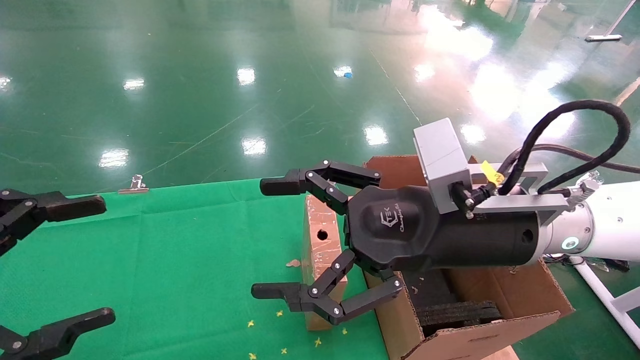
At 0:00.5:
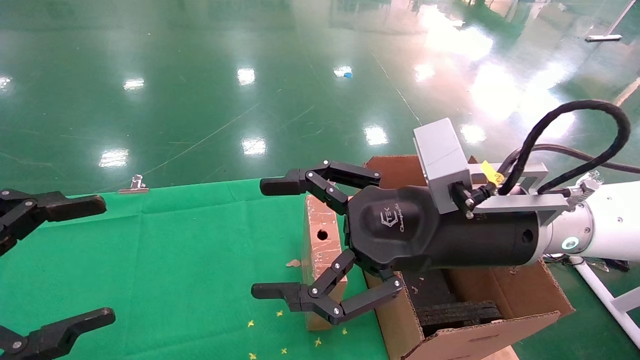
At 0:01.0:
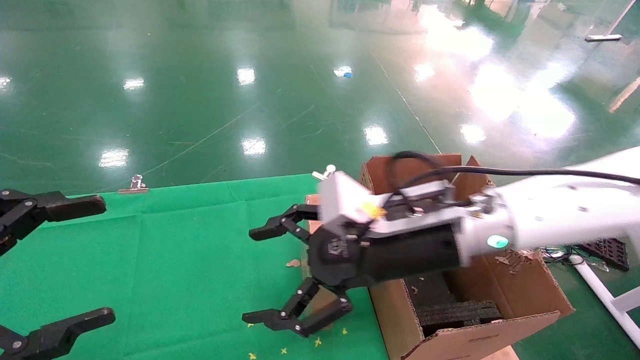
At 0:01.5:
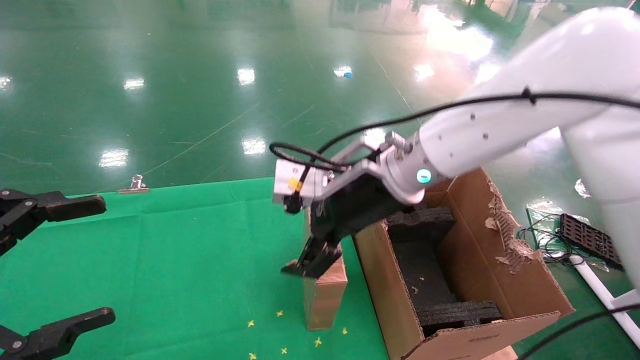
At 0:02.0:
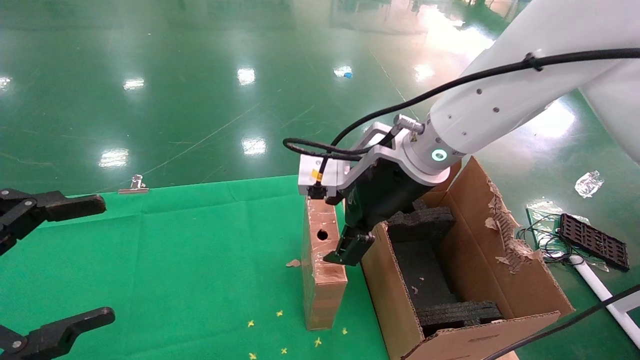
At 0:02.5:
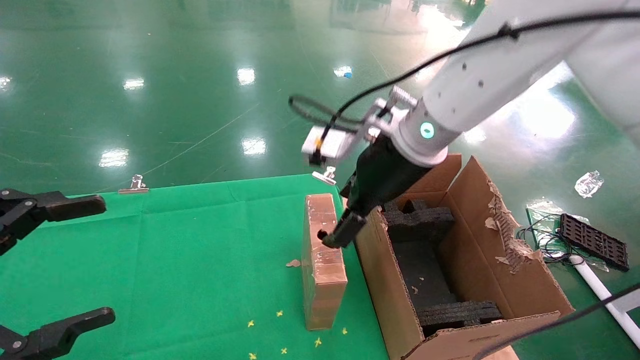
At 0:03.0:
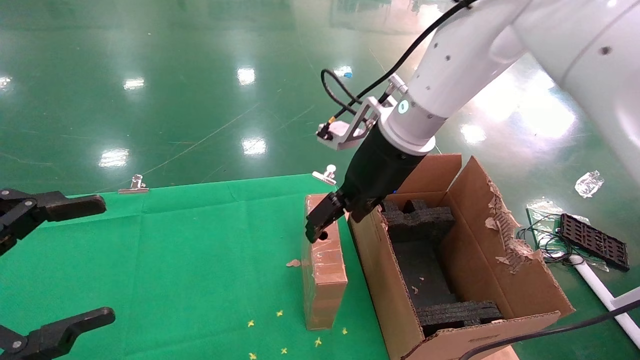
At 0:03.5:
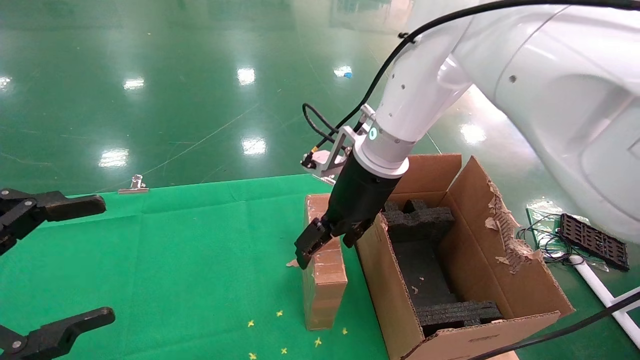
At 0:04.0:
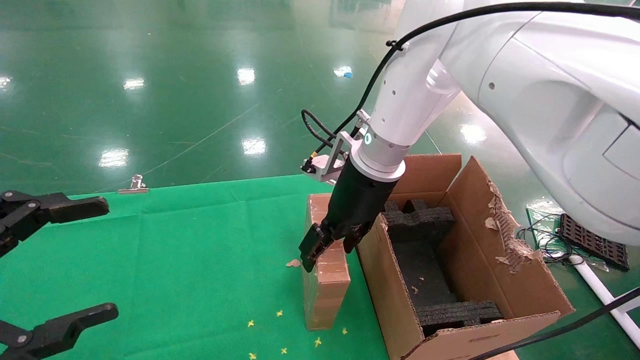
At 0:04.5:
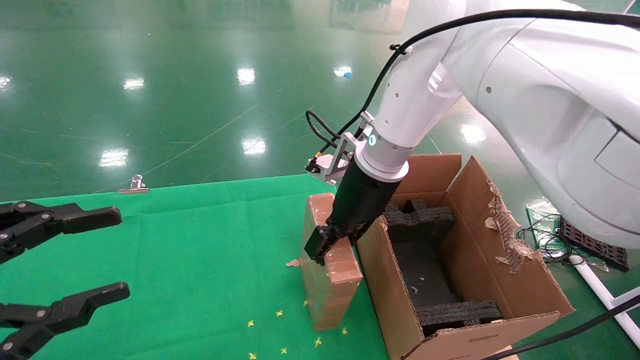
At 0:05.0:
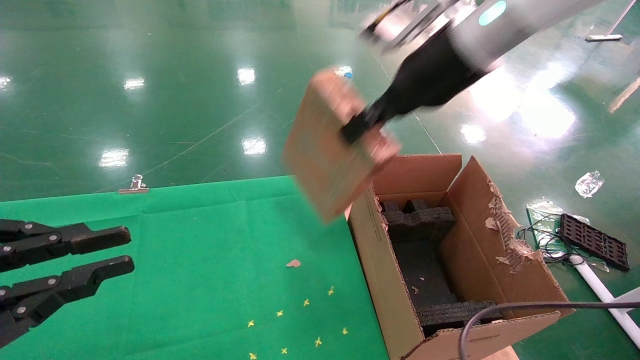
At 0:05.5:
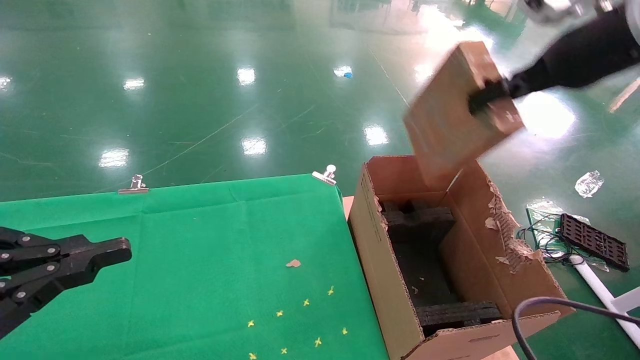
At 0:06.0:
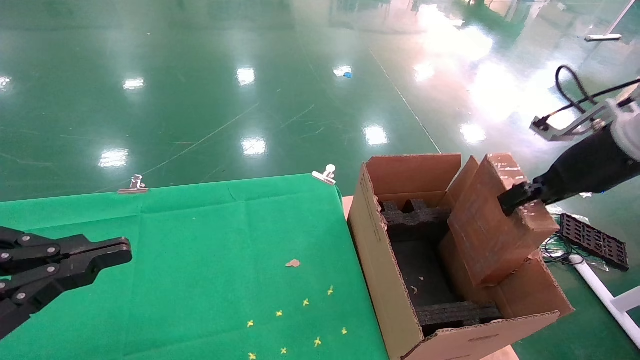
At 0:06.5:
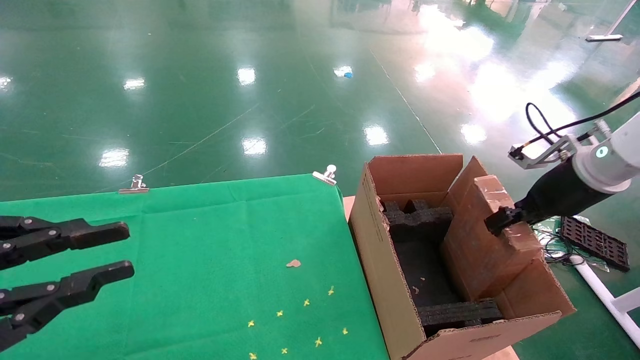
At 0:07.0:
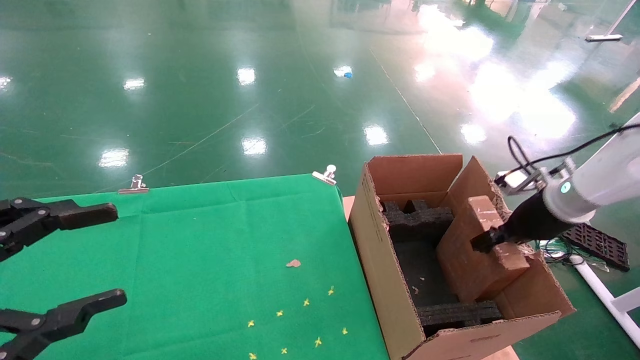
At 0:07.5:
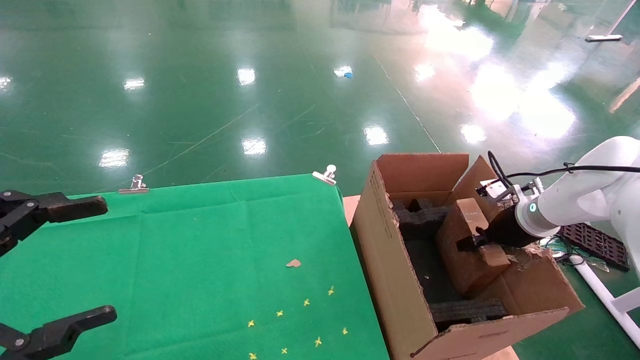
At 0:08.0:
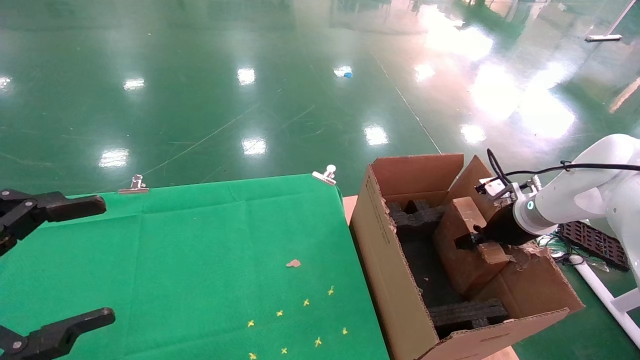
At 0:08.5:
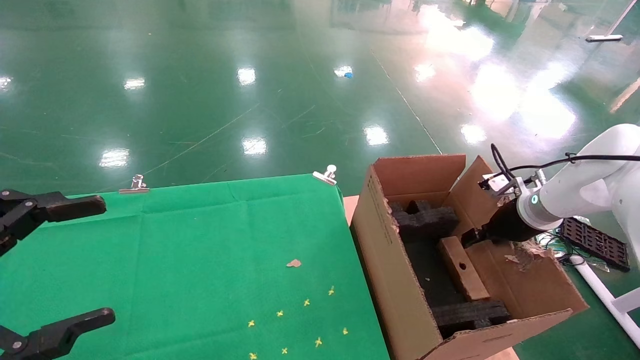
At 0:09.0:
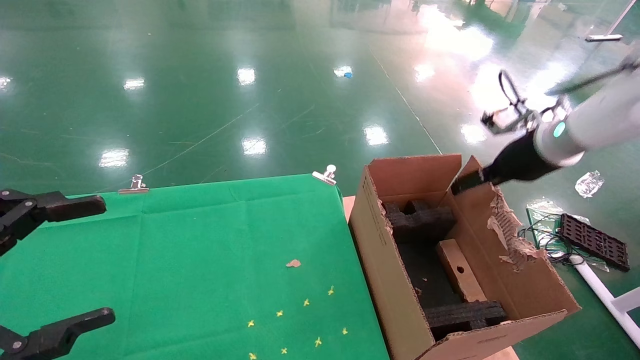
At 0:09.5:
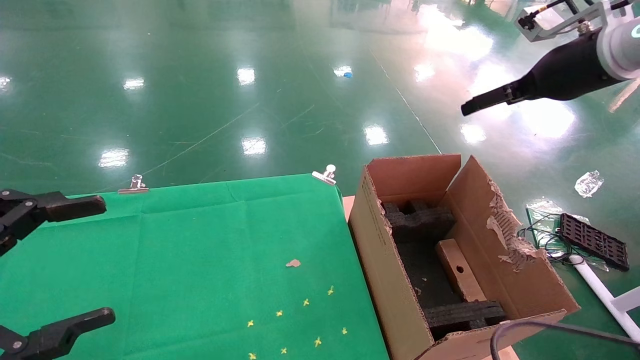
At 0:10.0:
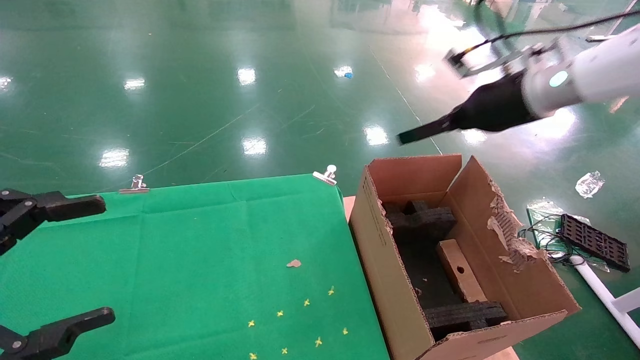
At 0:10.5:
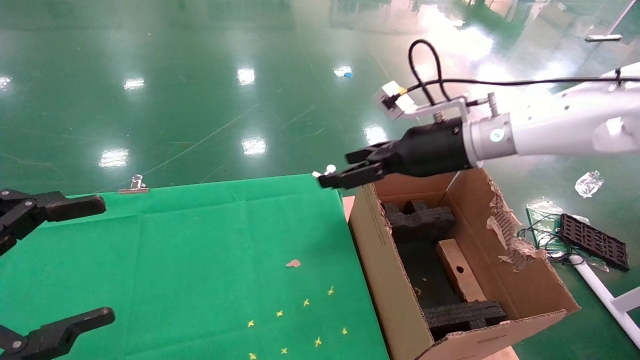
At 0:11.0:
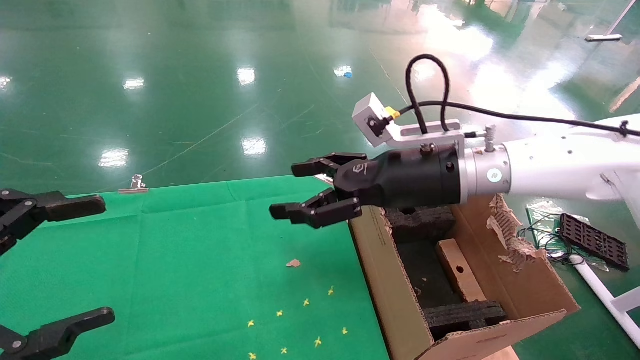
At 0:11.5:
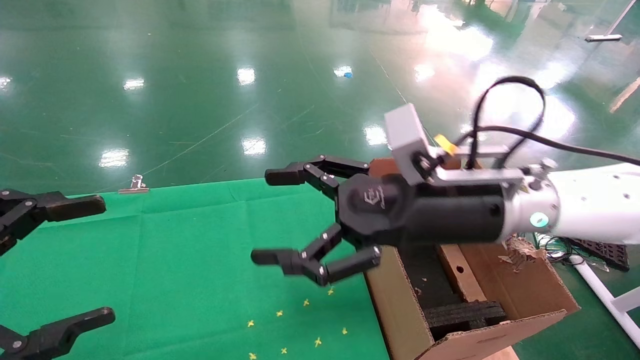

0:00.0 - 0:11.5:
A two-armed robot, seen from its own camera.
Task of the whole recording: using a robotic arm to pick up a cardboard box and palace it the carton.
Step, 0:01.0 - 0:04.0: Pick up the mouse and the power cord paper box.
Step, 0:04.5 - 0:08.5: Place the mouse and the power cord paper box into the container.
0:00.0 - 0:02.0: The right gripper travels forward by some 10 cm.
0:02.0 - 0:04.0: The right gripper goes some 5 cm forward.
0:04.0 - 0:06.0: The left gripper closes its fingers; the right gripper travels to the right by about 30 cm, and closes its fingers.
0:06.0 - 0:07.5: The left gripper opens up; the right gripper is displaced downward and forward by roughly 20 cm.
0:07.5 - 0:09.5: The right gripper moves upward, some 25 cm, and opens up.
0:09.5 - 0:11.5: The right gripper is displaced to the left and downward by about 25 cm.

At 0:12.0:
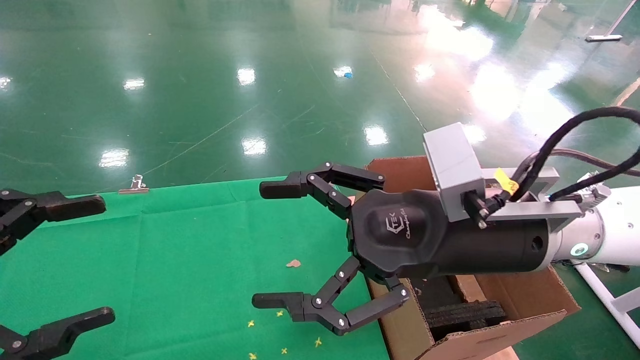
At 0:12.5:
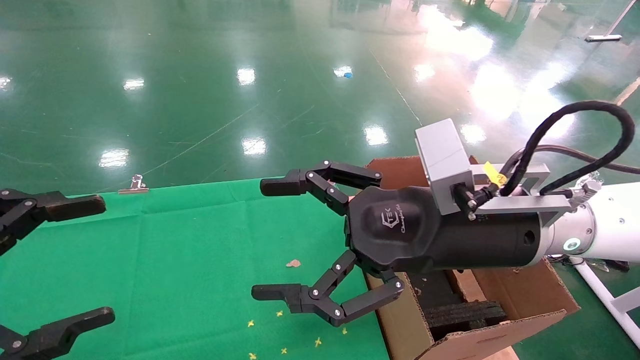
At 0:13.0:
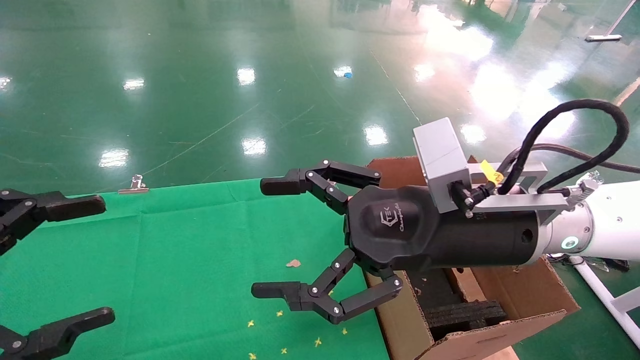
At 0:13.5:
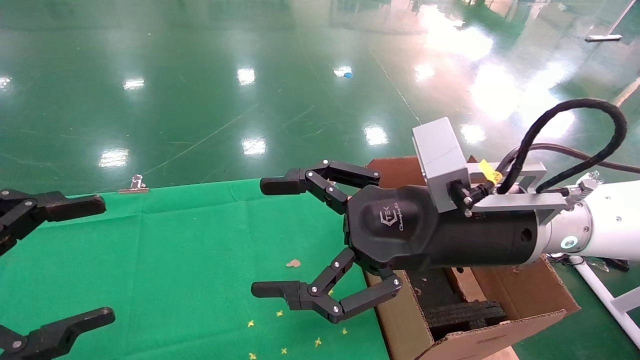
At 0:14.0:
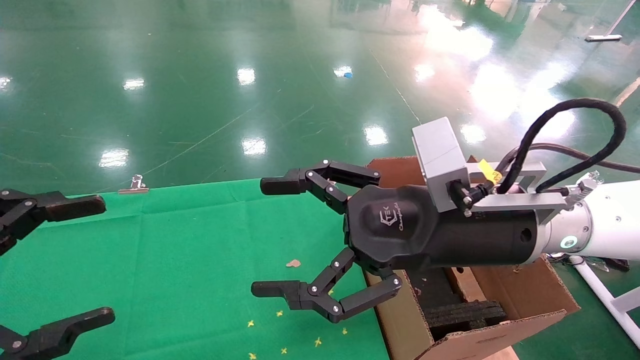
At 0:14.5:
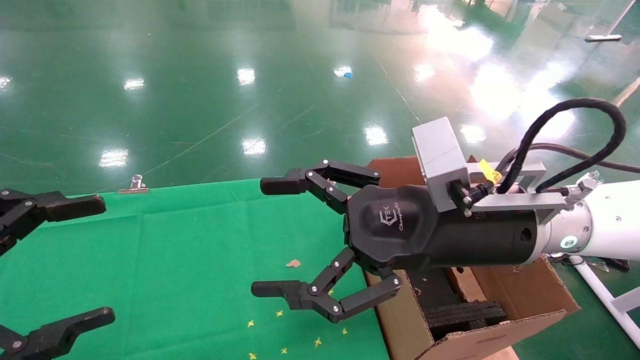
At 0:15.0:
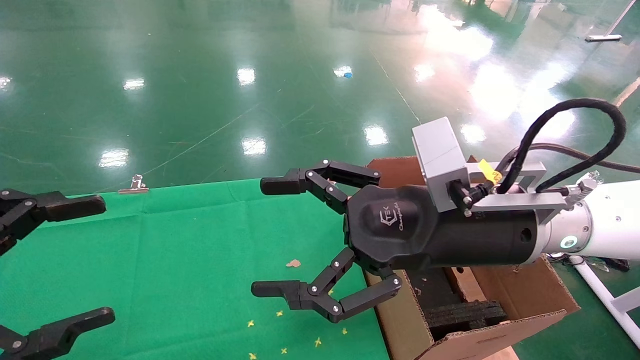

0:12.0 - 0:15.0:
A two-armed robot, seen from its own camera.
Task of the whole recording: using a robotic arm to pick up a cardboard box and palace it the carton.
0:12.0 - 0:15.0: Both grippers stay put.

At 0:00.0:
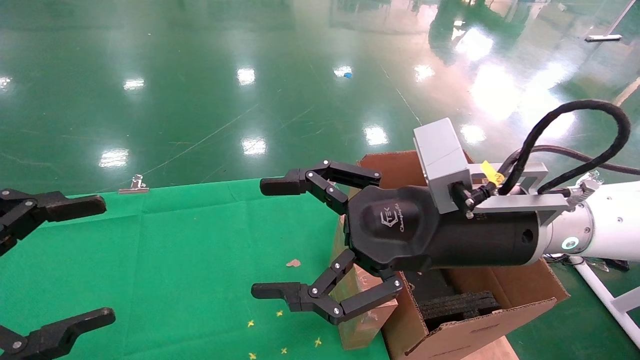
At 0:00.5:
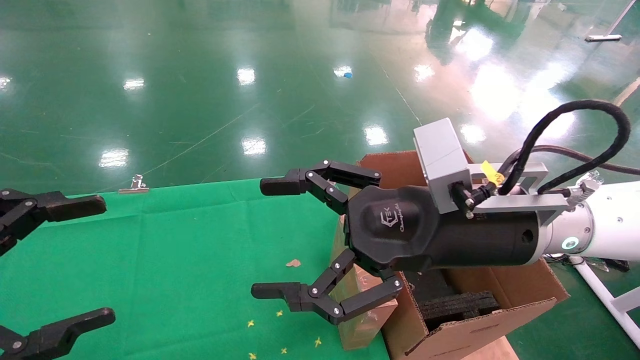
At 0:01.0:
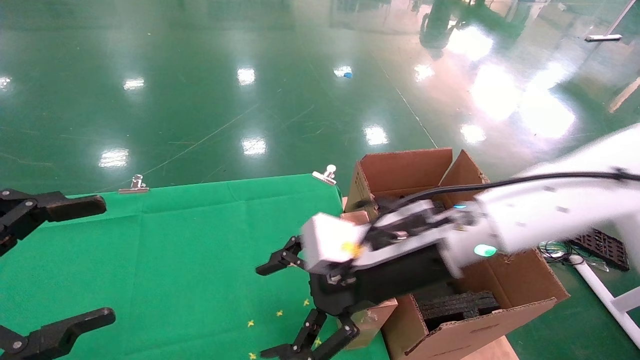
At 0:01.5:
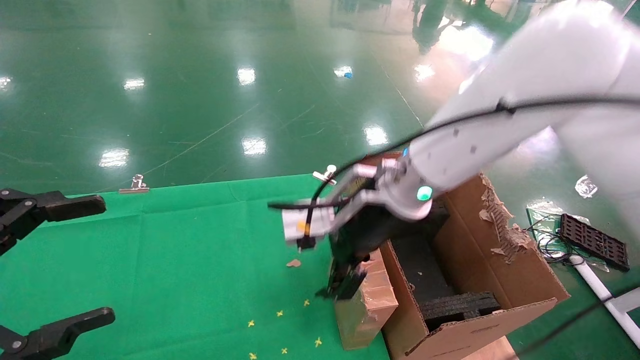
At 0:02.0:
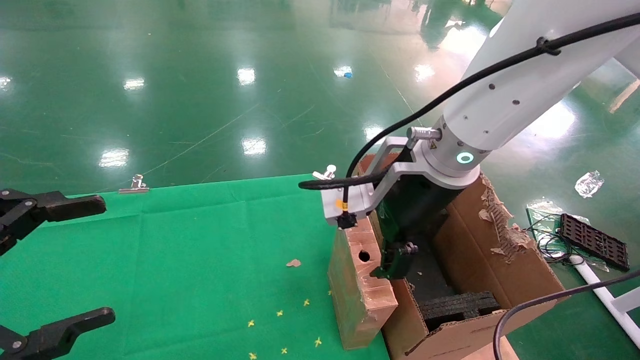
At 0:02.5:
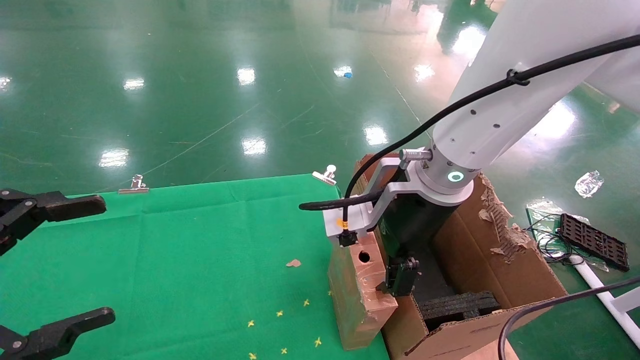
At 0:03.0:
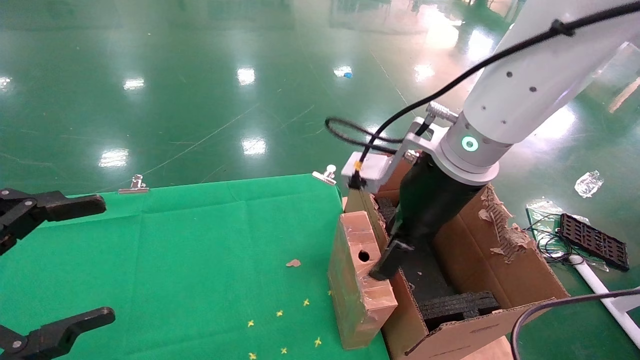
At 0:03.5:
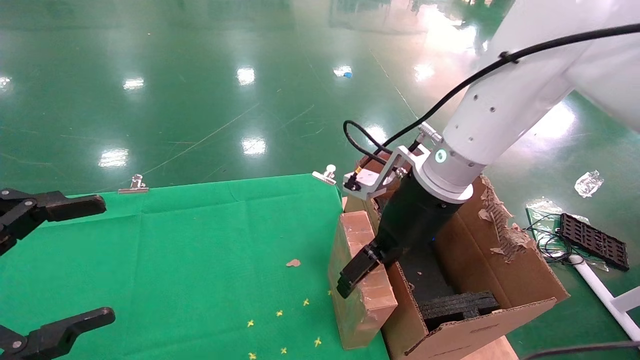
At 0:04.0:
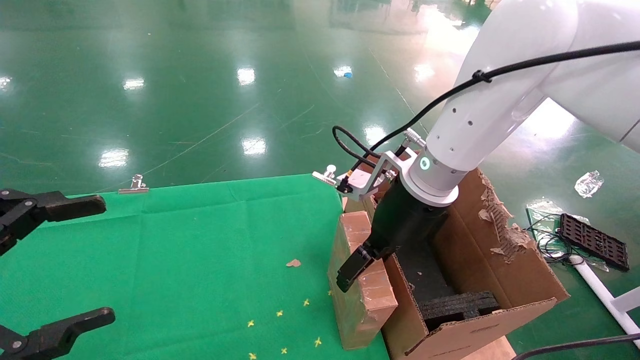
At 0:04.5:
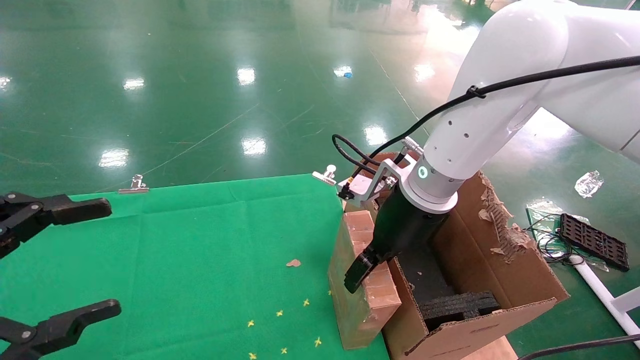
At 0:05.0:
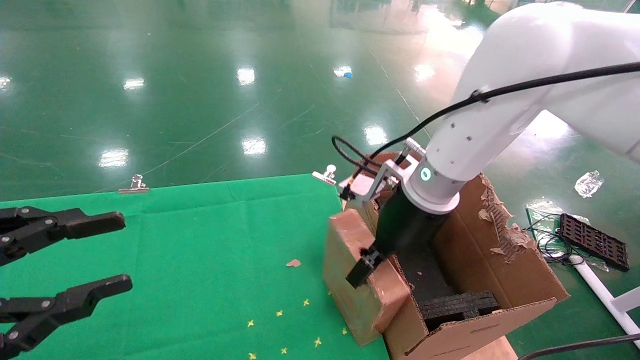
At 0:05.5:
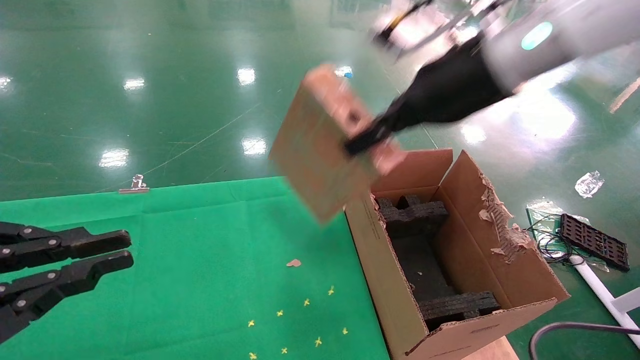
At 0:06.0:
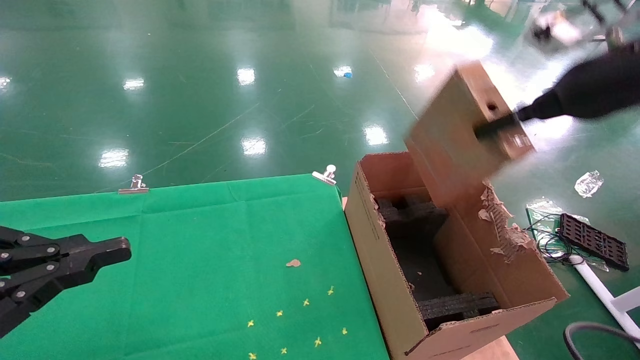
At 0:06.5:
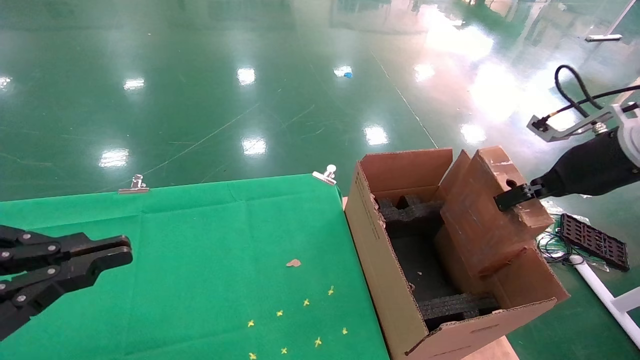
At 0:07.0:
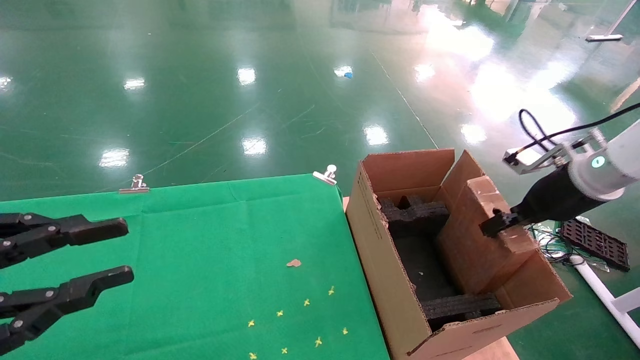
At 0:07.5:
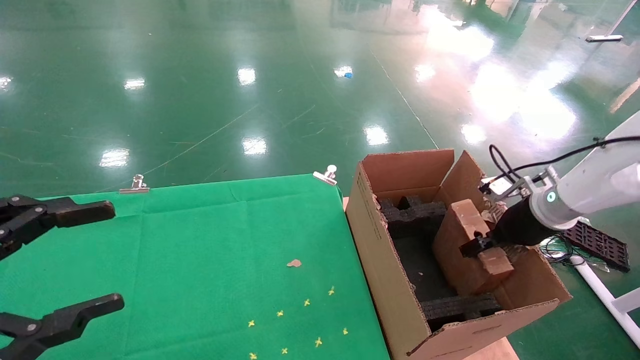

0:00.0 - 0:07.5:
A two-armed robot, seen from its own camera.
Task of the whole recording: using a robotic arm to pick up a cardboard box and palace it the carton.
Step, 0:01.0 - 0:05.0: Pick up the mouse and the power cord paper box.
0:00.0 - 0:02.0: The right gripper goes roughly 5 cm forward.
0:02.0 - 0:04.0: The right gripper changes place by roughly 5 cm.
0:04.0 - 0:05.5: The left gripper closes up. The right gripper travels upward and to the right by some 15 cm, and closes its fingers.
0:05.5 - 0:07.5: The left gripper opens its fingers. The right gripper goes approximately 30 cm downward and to the right.
